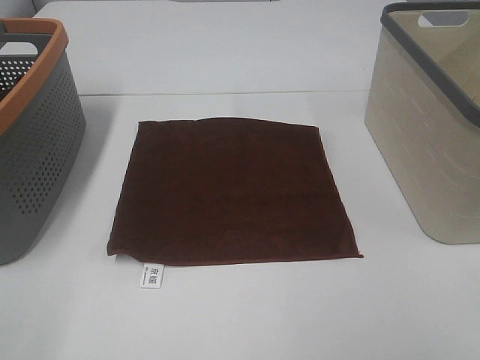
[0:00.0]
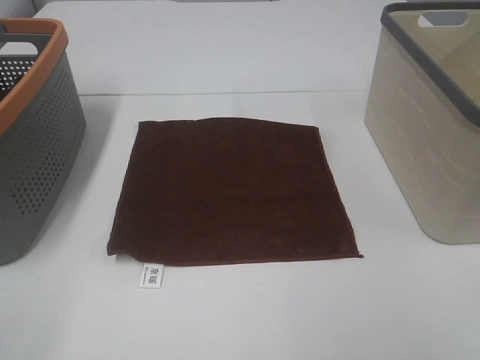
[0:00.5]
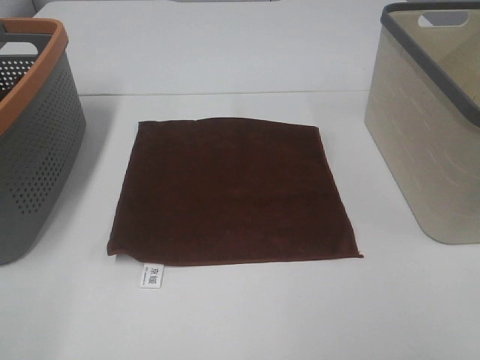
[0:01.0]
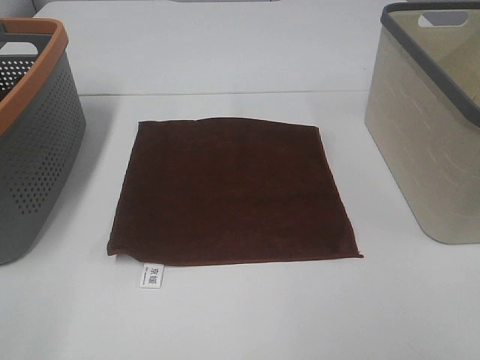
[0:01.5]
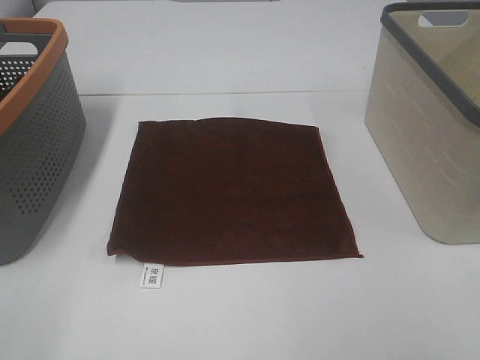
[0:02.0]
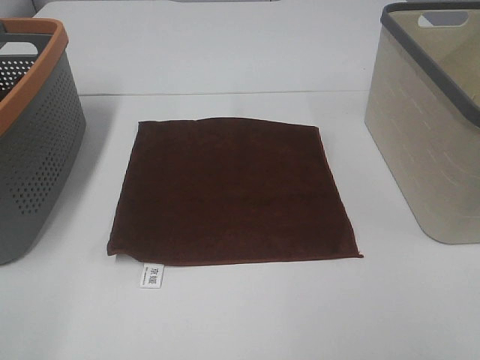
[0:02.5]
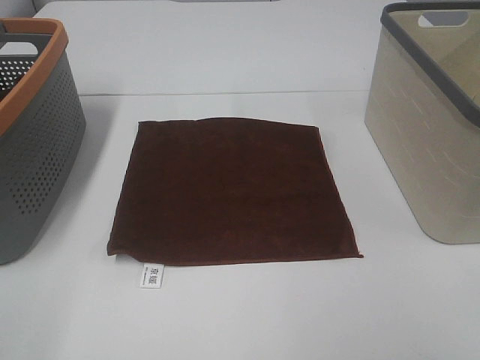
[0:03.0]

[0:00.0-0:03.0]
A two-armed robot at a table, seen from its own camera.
Task of the whole recording: Remove the towel and place it.
0:00.0 to 0:03.0: Neither gripper changes place.
